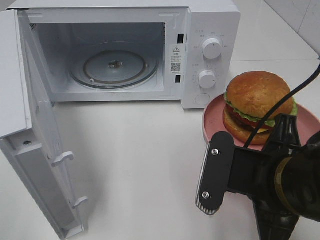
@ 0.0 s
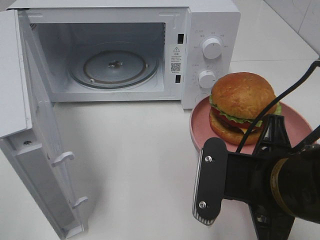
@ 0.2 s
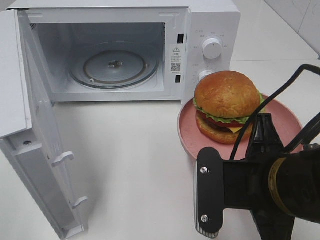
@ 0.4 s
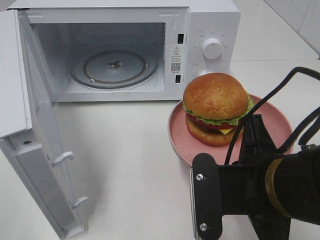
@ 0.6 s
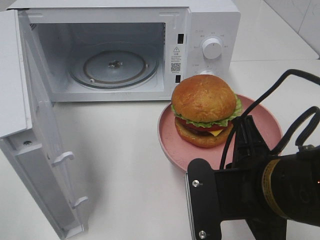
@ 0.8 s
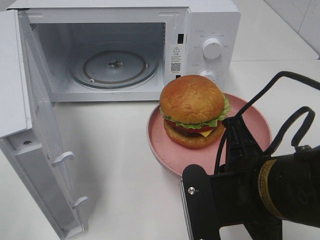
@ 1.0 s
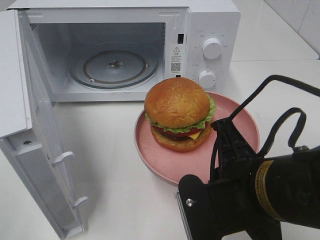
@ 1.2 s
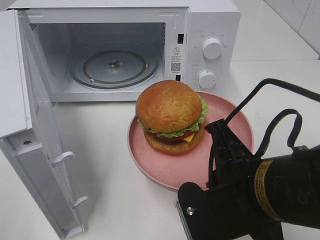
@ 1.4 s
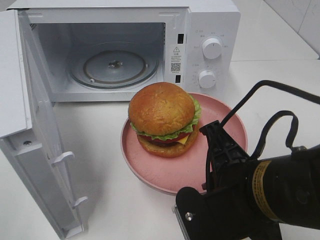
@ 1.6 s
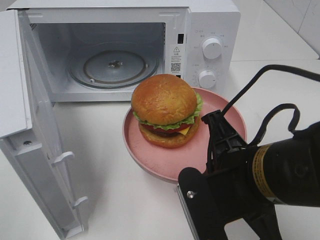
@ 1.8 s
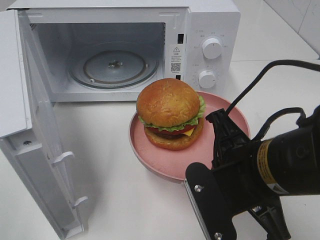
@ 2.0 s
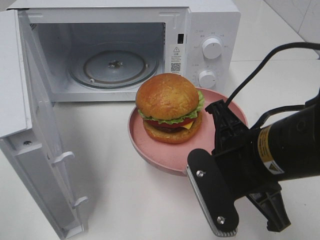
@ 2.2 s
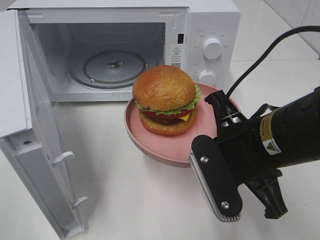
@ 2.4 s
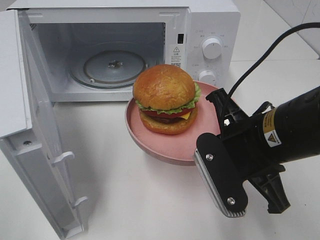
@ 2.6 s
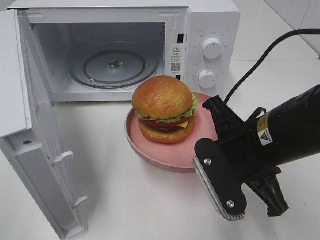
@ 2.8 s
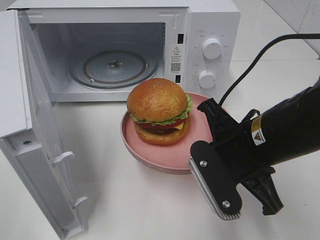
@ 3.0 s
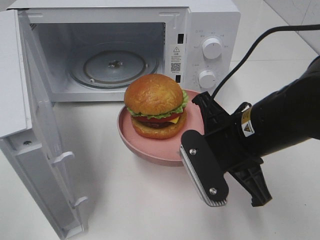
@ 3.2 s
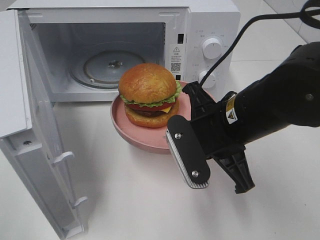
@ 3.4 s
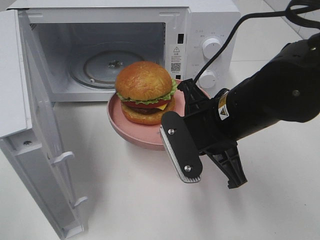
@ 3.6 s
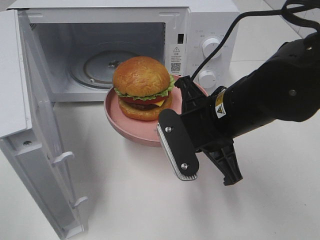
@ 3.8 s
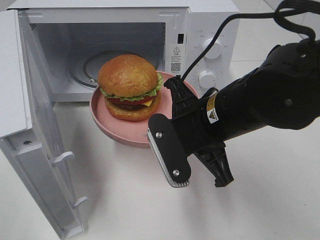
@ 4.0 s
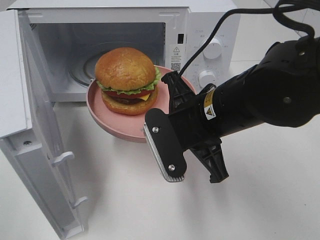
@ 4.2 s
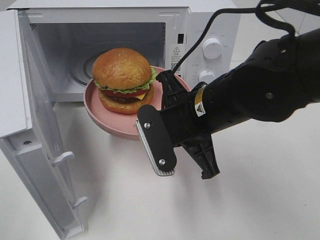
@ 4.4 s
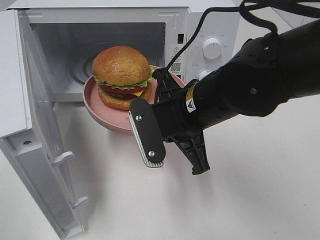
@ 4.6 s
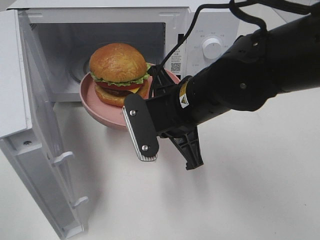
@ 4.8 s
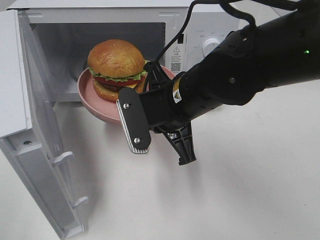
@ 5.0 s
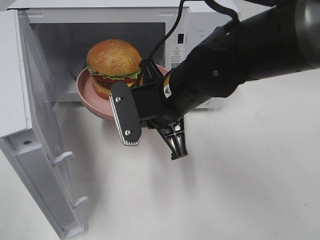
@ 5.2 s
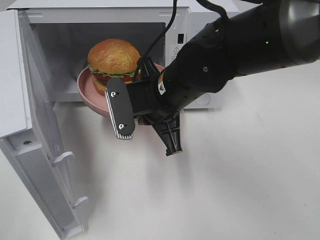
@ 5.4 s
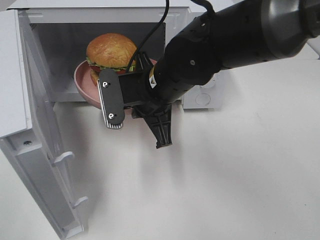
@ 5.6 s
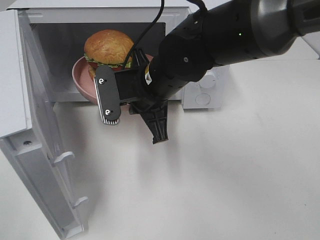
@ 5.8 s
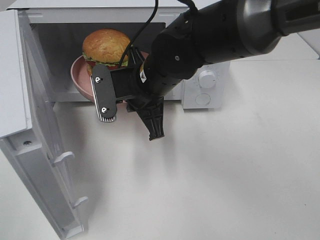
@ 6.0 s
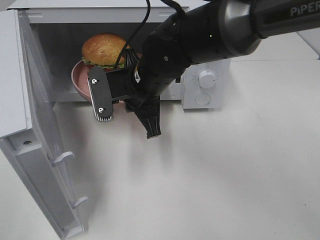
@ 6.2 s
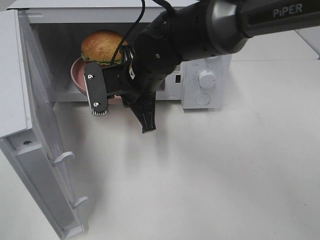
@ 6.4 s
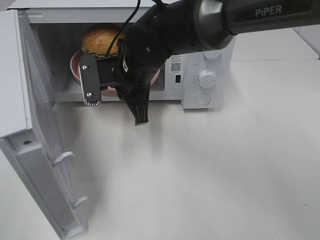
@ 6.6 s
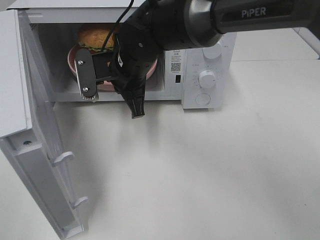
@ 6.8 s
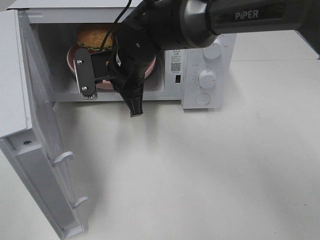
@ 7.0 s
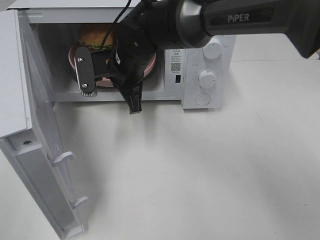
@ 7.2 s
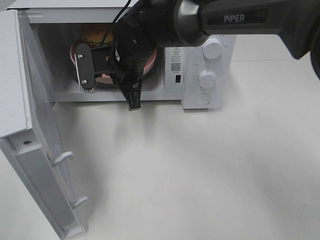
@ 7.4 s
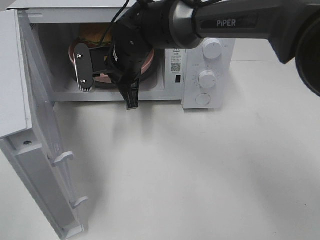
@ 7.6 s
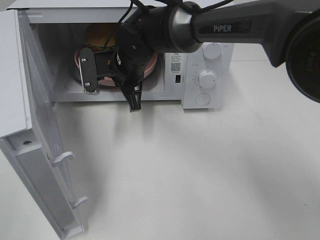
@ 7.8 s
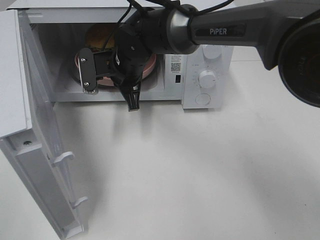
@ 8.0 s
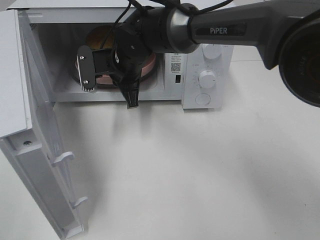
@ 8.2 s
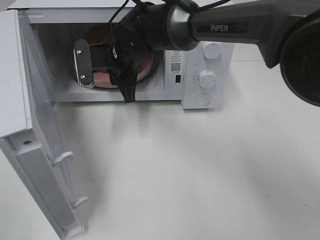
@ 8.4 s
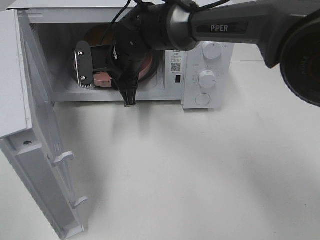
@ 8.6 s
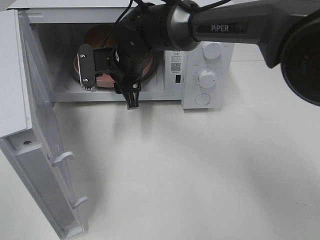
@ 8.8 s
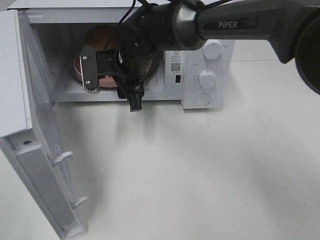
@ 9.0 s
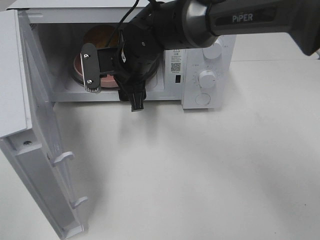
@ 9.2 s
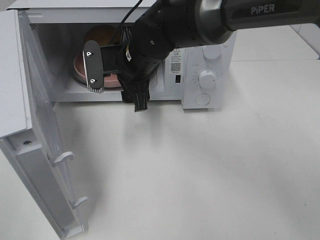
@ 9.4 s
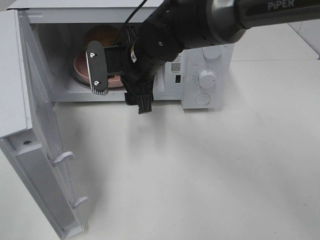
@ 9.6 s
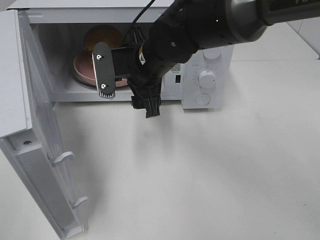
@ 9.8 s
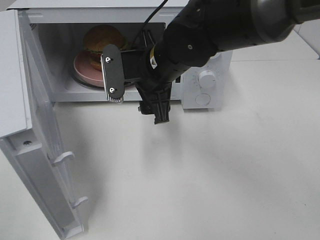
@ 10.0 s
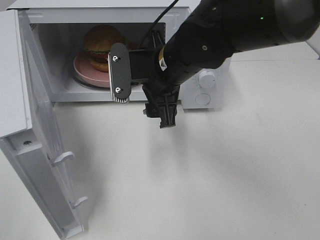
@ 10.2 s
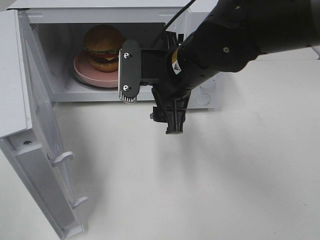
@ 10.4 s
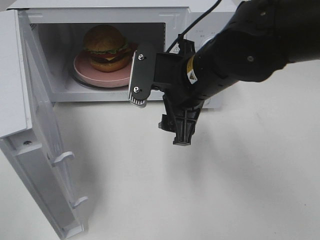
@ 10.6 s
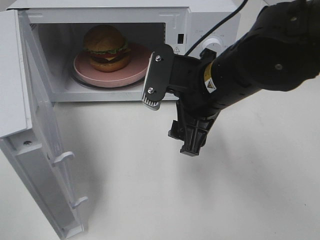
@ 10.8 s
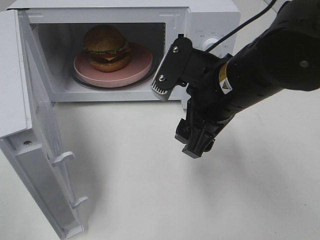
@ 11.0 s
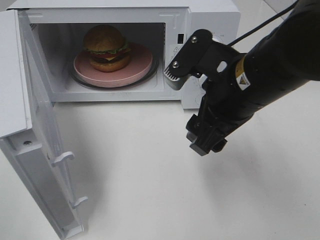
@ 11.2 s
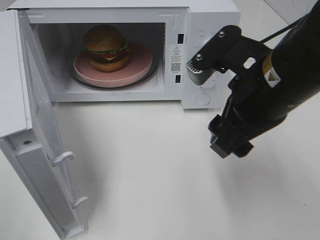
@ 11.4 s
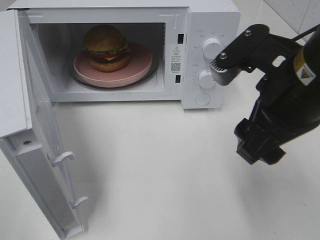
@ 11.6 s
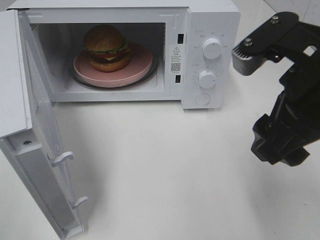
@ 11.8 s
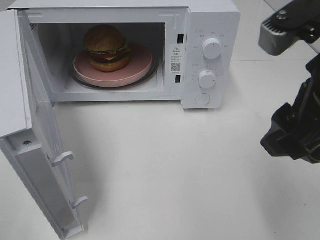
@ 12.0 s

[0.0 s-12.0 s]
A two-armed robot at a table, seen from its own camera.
Task of the whole recording: Heat the burger.
Step, 0.0 to 8.4 s: Right hand: place the plate in the microwave.
1.6 to 3.0 s: The right gripper is displaced forward by roughly 5 cm.
3.0 to 4.4 s: The right gripper goes some 5 cm to the left.
4.4 to 6.0 s: The right gripper shifts about 10 cm forward and to the left.
6.0 to 7.6 s: The right gripper moves forward, about 10 cm.
7.6 to 9.0 s: The right gripper opens its fingers.
9.0 to 10.4 s: The right gripper travels backward and to the right by approximately 15 cm.
10.4 to 12.0 s: The right gripper moves backward, to the right and upward, some 20 cm.

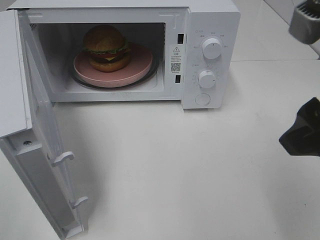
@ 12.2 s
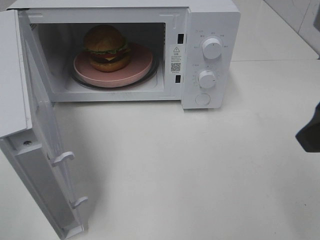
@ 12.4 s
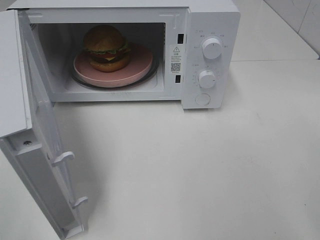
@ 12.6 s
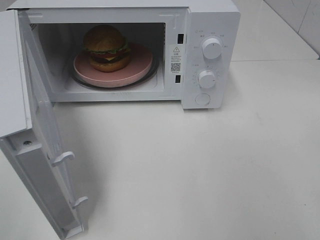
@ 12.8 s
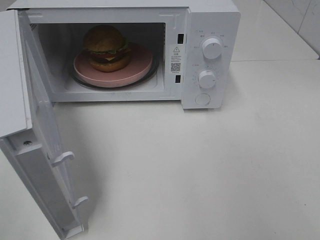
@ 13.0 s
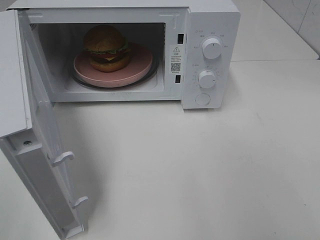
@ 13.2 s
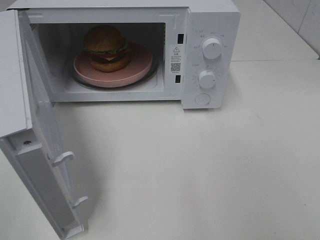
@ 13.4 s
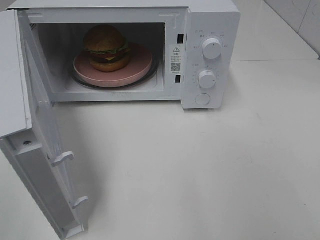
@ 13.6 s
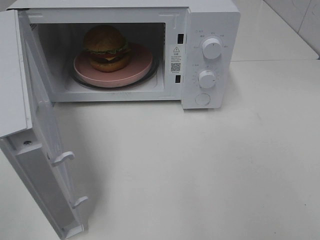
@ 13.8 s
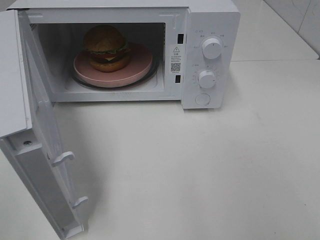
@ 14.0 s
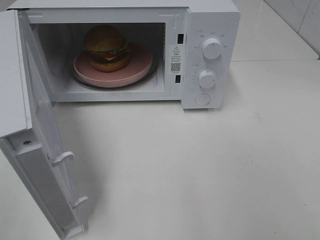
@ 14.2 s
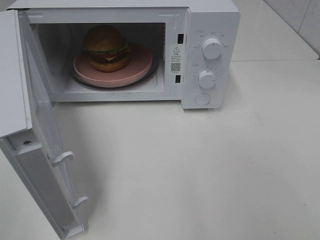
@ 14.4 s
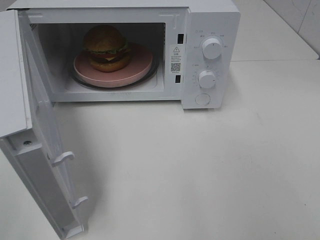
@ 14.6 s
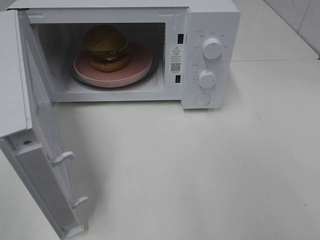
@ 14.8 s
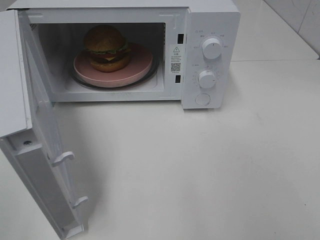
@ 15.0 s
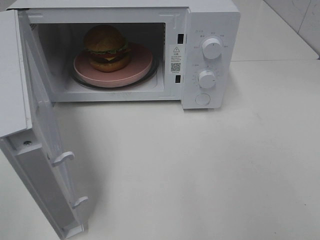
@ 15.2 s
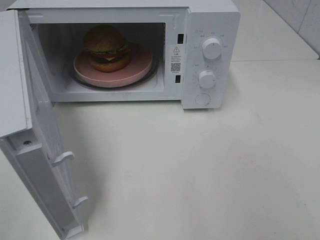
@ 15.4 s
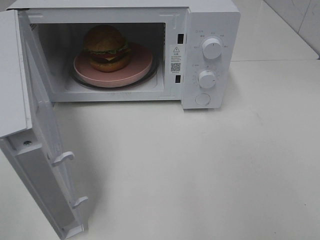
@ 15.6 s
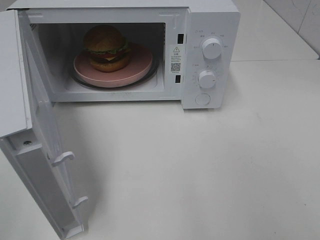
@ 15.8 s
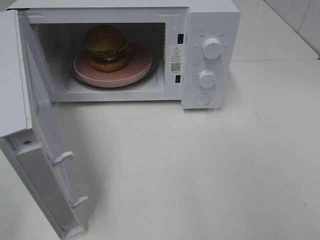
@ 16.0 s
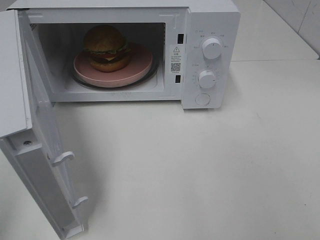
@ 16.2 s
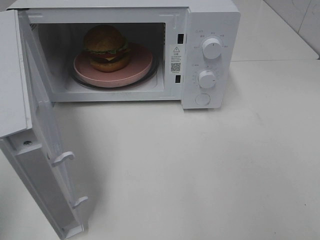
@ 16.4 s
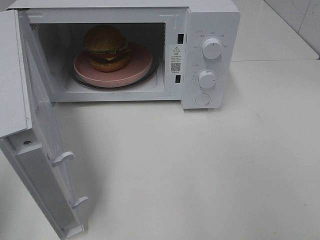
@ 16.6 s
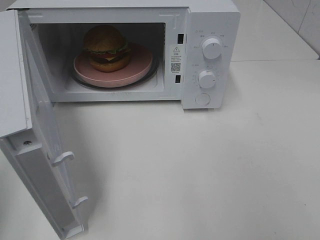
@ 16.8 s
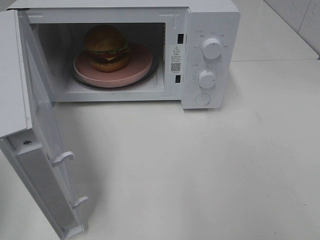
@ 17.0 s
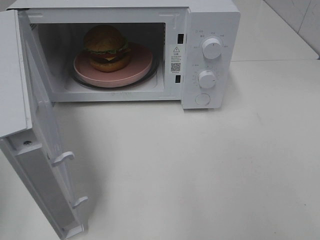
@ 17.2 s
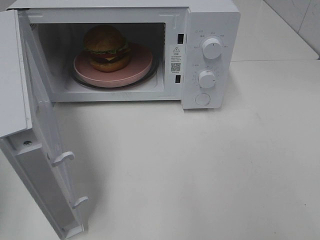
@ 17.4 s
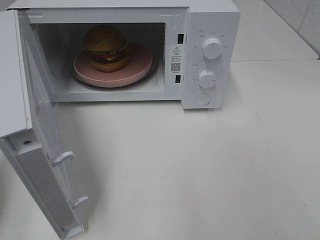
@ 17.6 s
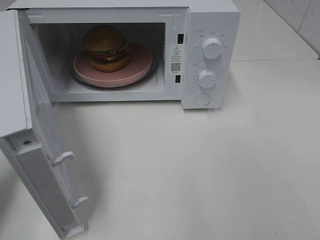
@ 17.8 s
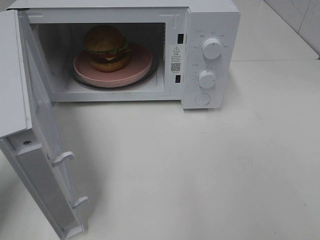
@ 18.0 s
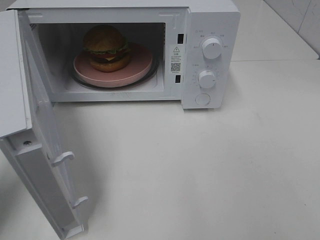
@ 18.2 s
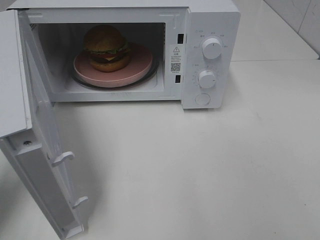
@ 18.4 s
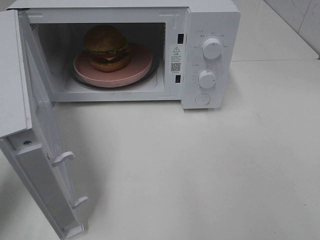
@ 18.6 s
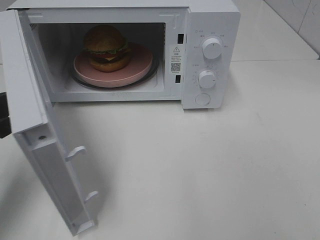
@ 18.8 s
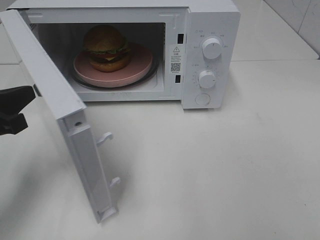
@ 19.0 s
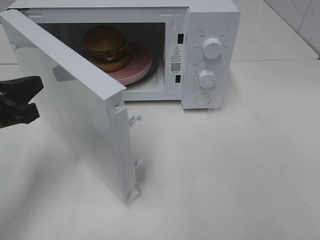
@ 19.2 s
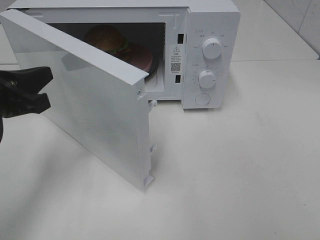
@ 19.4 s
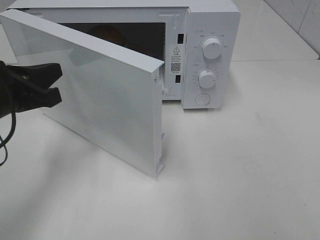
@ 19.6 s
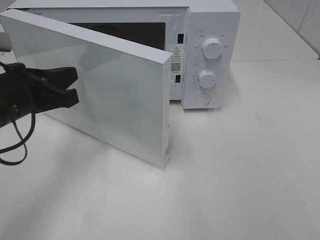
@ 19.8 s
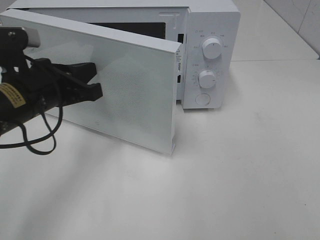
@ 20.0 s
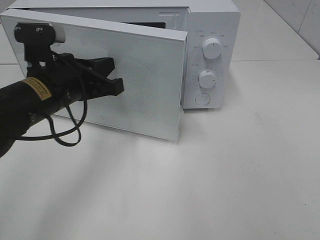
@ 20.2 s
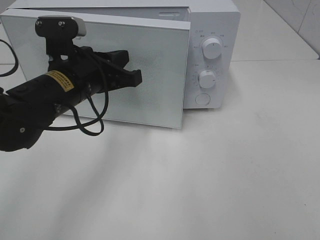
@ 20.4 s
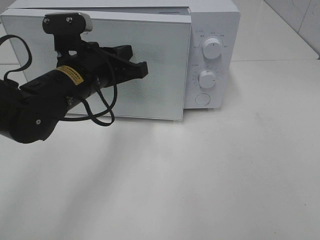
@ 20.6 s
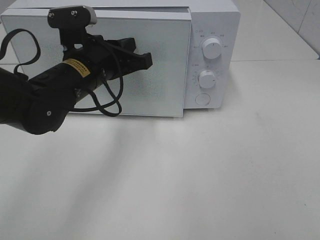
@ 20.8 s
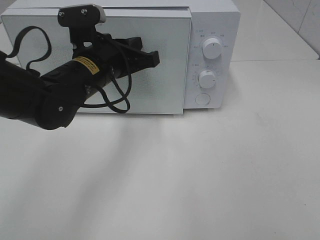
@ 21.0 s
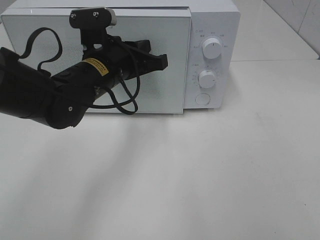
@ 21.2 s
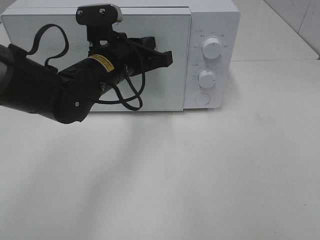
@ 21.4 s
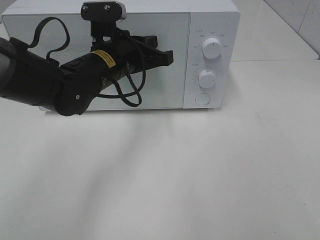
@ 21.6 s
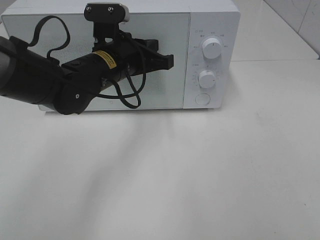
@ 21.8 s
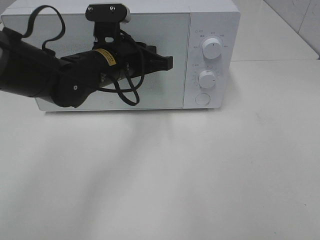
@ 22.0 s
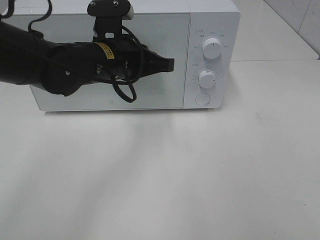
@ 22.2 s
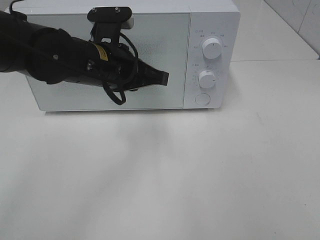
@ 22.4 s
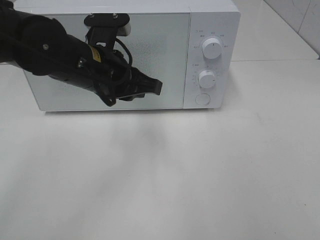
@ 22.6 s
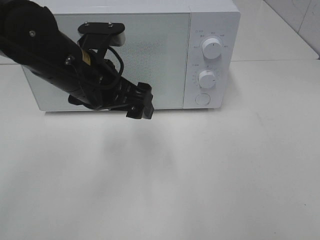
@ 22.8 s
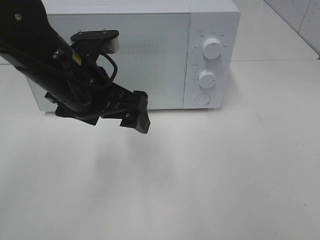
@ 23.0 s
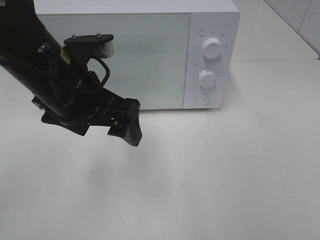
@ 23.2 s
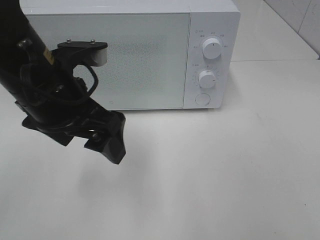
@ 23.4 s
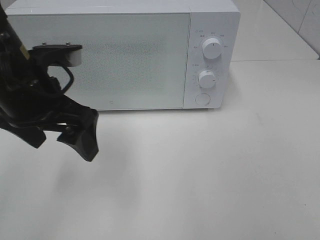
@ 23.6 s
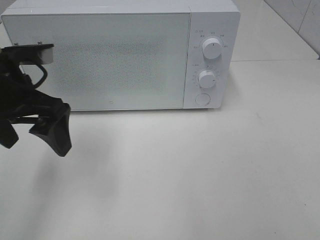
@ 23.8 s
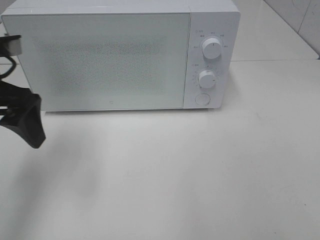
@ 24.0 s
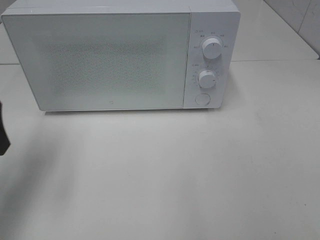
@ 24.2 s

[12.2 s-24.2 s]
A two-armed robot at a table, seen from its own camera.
Task of the whole recording: Heat the burger.
Step, 12.2 to 22.0 s: Left hand: close the microwave door.
12.2 to 13.8 s: The right gripper travels backward and to the right by approximately 20 cm.
13.8 to 15.2 s: Both grippers stay about where they are.
16.6 to 18.2 s: The left gripper moves downward and forward, about 15 cm.
18.2 to 19.8 s: The left gripper travels to the right and forward by about 10 cm.
19.8 to 21.2 s: The left gripper is displaced to the right and forward by approximately 15 cm.
22.6 to 24.2 s: The left gripper goes some 20 cm to the left, and opens.
